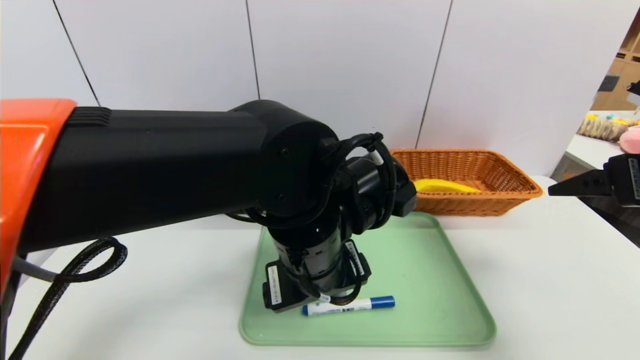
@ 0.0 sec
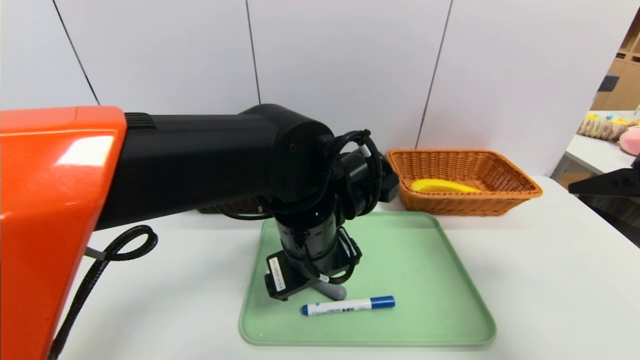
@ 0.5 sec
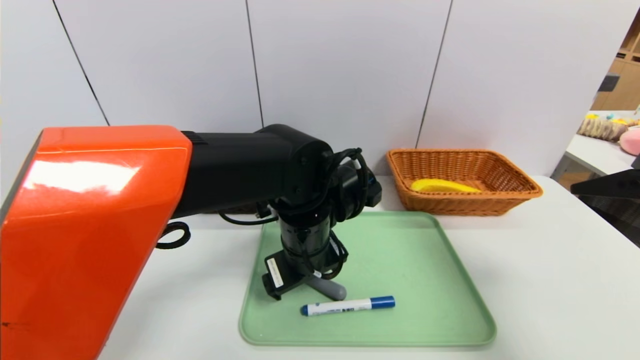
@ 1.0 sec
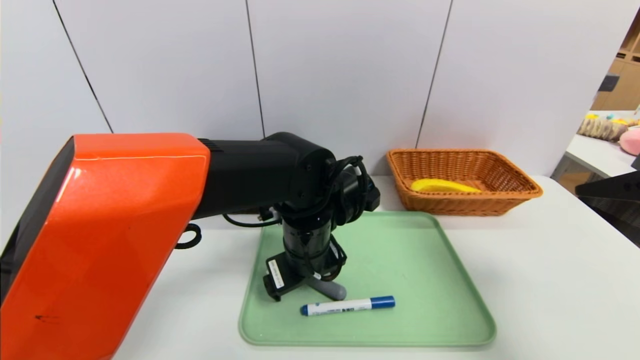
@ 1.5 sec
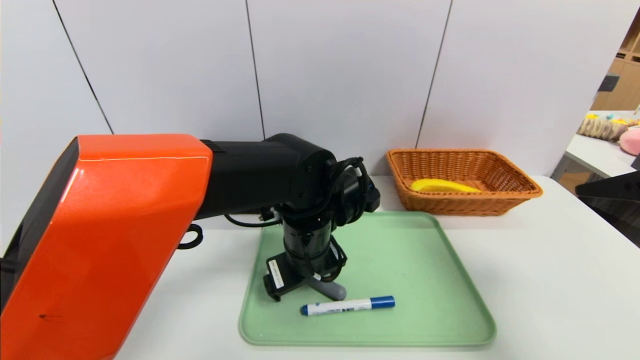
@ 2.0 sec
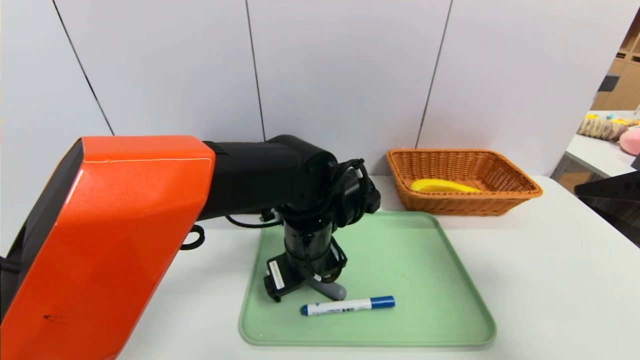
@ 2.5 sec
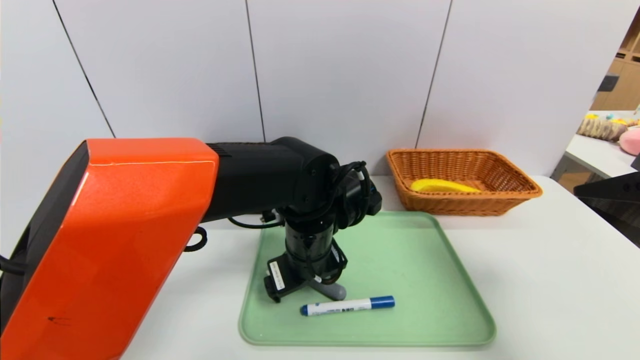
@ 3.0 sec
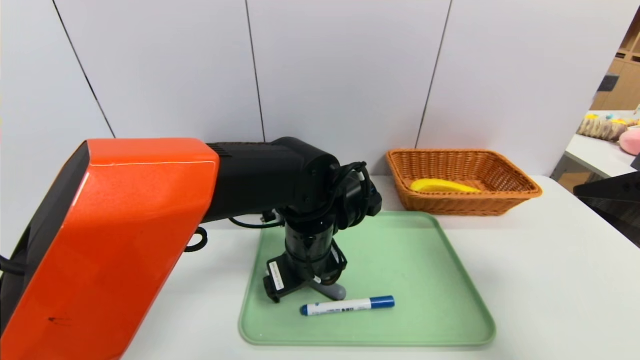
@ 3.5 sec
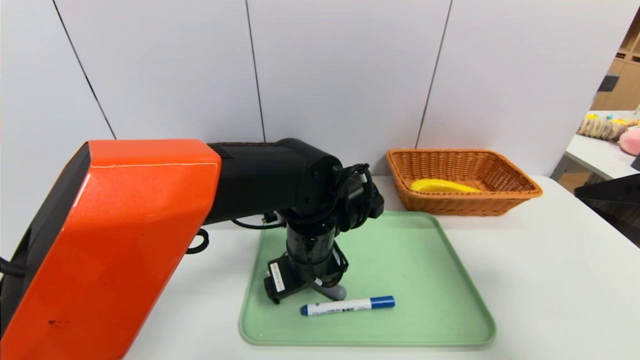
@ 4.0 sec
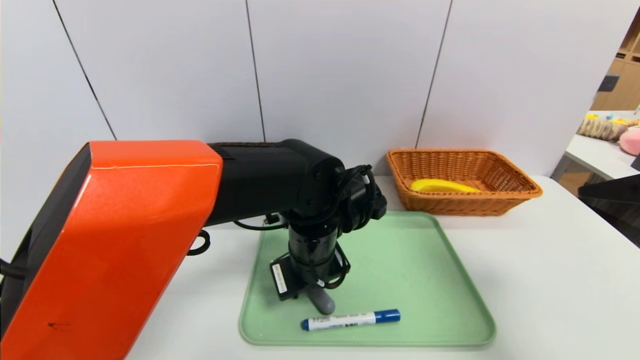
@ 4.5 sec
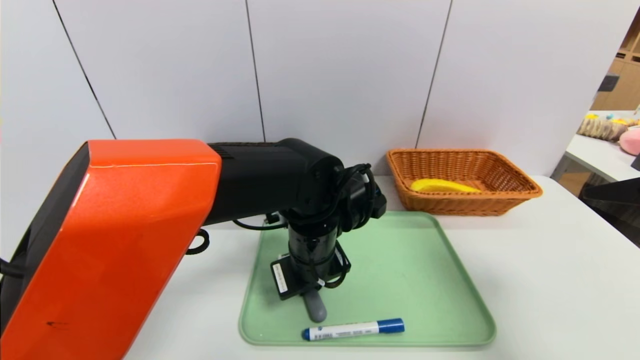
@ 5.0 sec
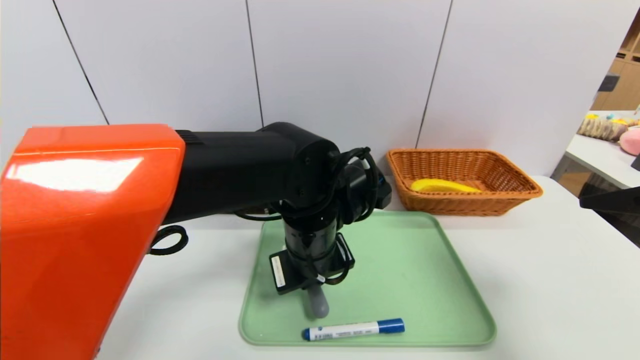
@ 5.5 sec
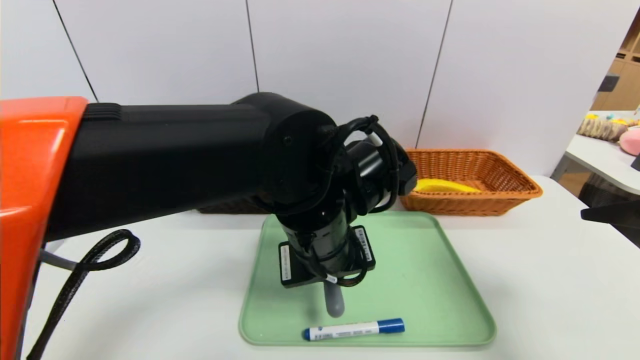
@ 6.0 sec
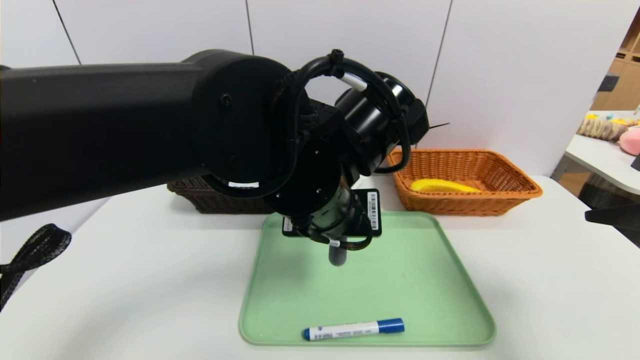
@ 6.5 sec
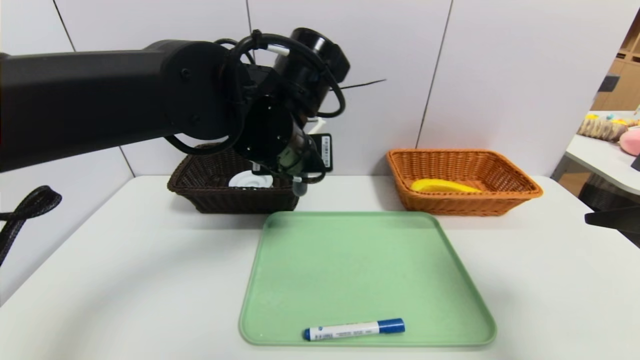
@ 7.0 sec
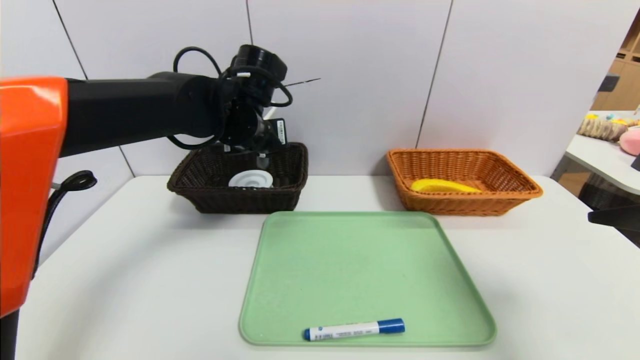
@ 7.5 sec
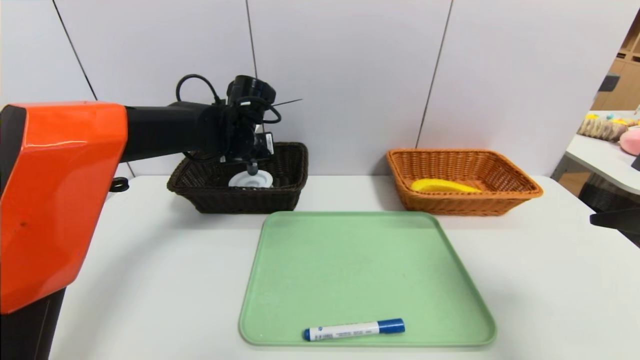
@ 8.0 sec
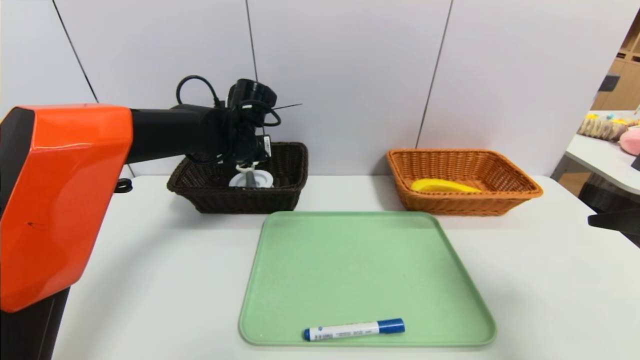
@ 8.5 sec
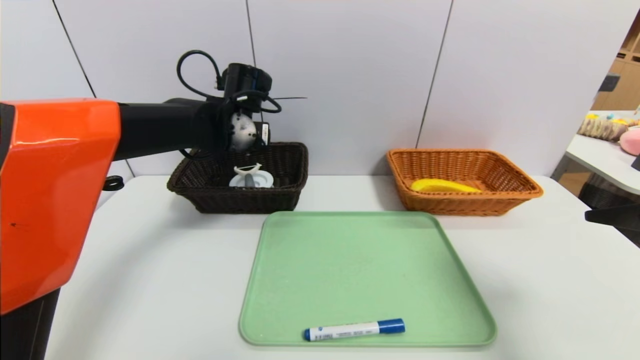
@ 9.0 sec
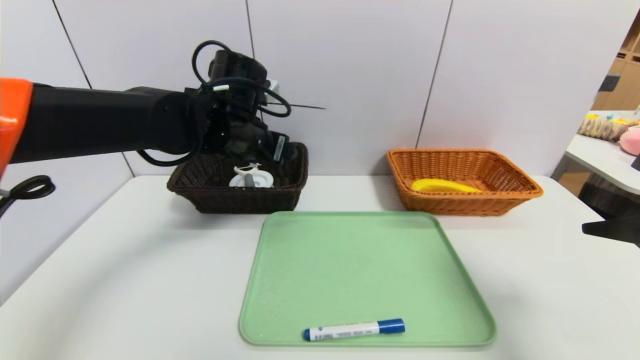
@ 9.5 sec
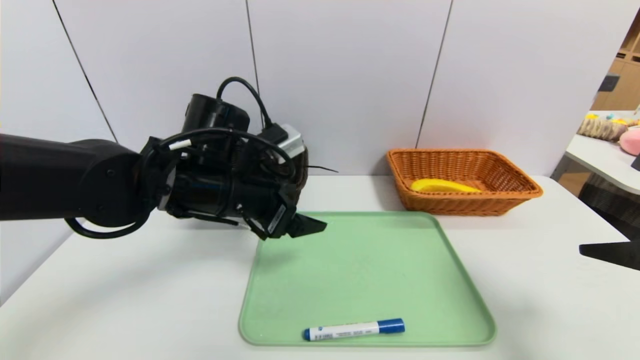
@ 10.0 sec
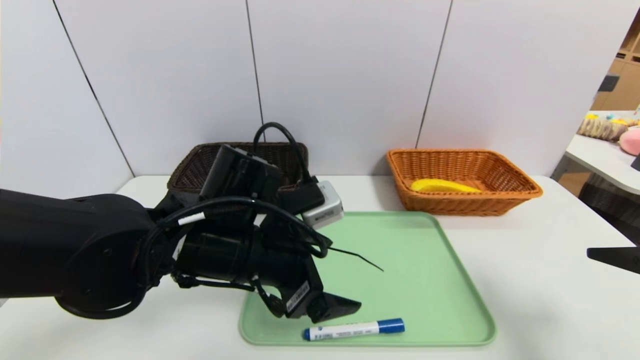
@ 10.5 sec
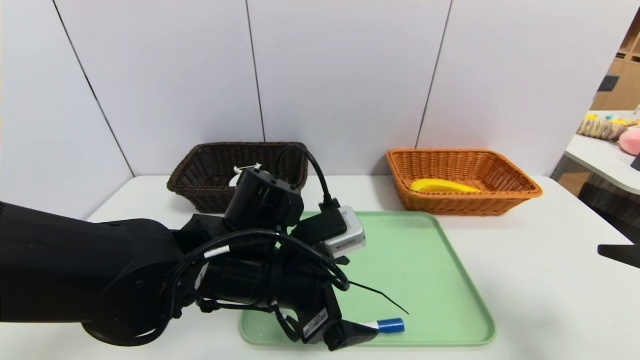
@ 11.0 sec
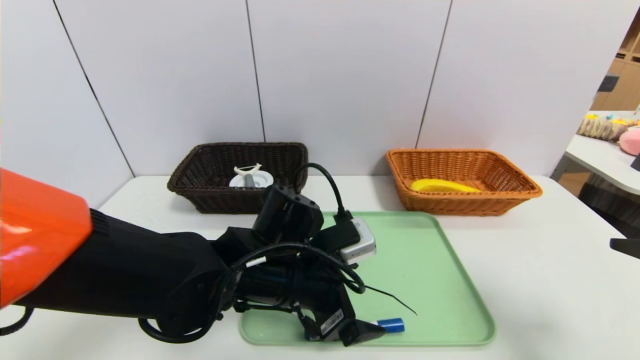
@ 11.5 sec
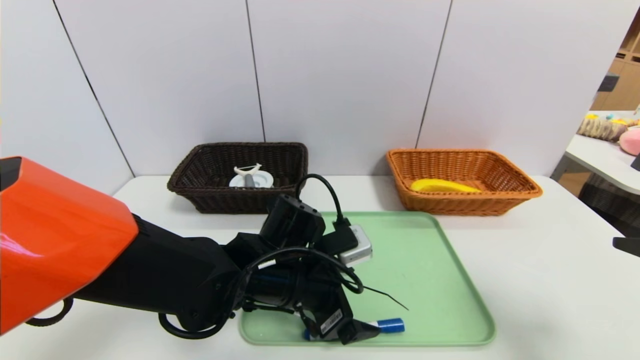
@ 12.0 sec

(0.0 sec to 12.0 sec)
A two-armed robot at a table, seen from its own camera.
Task of the whole recording: place the food in the right basket with the right gripper, and place the non food items in the left basket with the left gripper.
Step, 0.0 sec - 9.5 sec: Grasp the peeler and put it in the left basket.
0.0 sec - 2.0 sec: The left gripper goes roughly 10 cm forward and downward.
2.0 sec - 4.0 sec: Neither gripper changes place.
4.0 sec - 6.0 sec: The left gripper goes approximately 5 cm upward, and closes.
6.0 sec - 8.0 sec: The left gripper moves forward and to the left, about 25 cm.
8.0 sec - 10.0 sec: The left gripper moves backward, roughly 15 cm, and opens its fingers.
10.0 sec - 12.0 sec: The left gripper is displaced downward and to the right by about 15 cm.

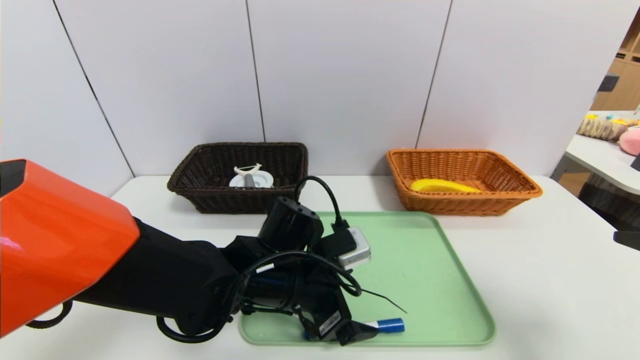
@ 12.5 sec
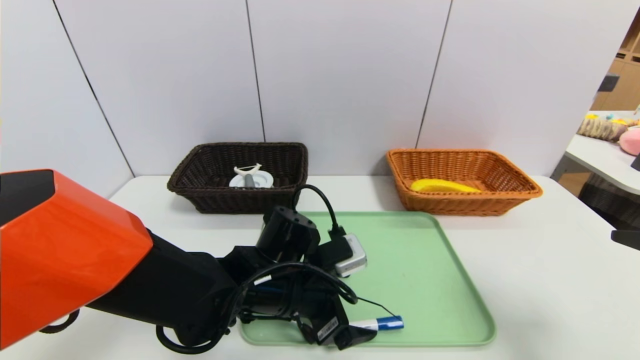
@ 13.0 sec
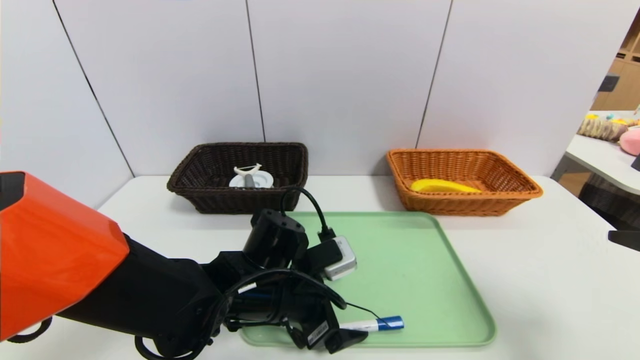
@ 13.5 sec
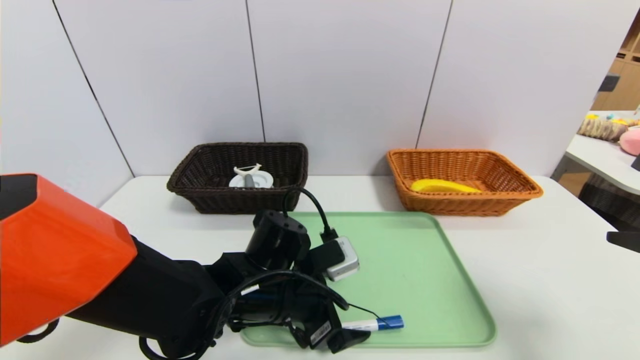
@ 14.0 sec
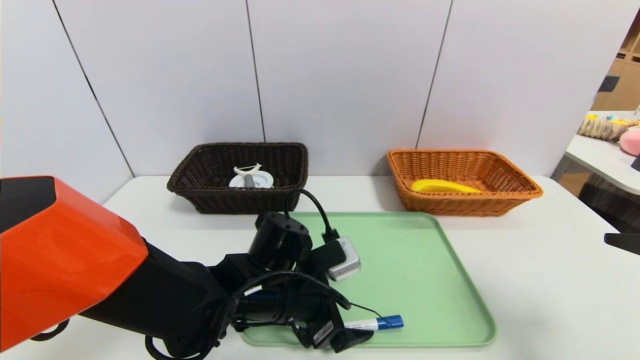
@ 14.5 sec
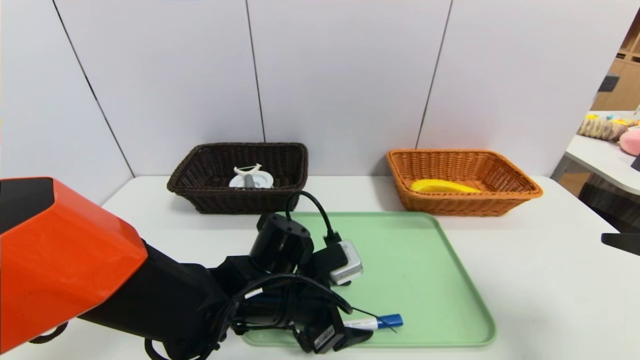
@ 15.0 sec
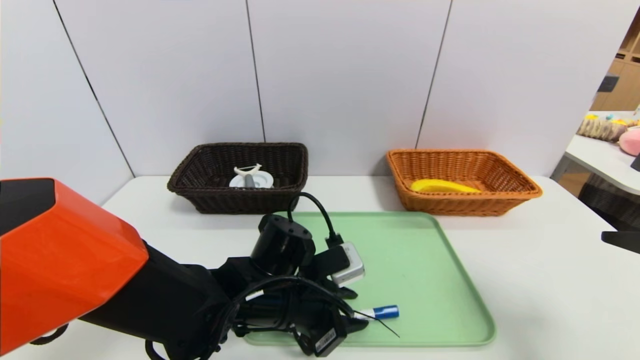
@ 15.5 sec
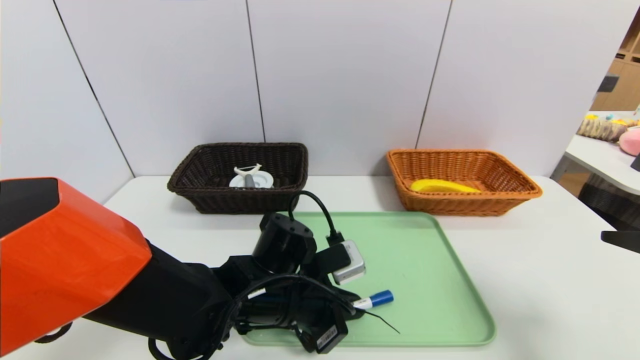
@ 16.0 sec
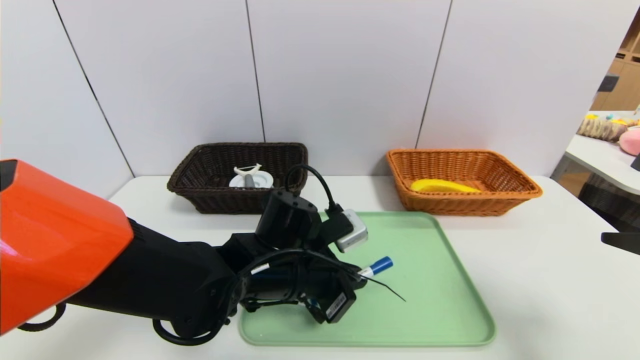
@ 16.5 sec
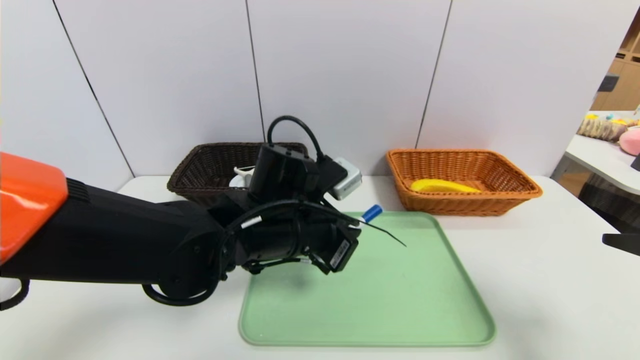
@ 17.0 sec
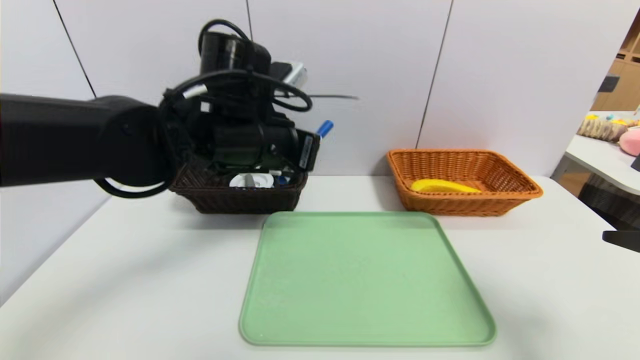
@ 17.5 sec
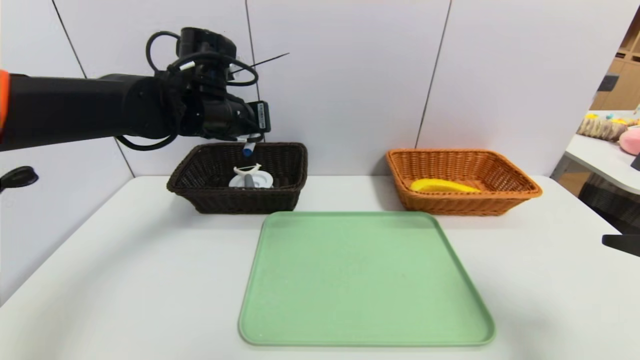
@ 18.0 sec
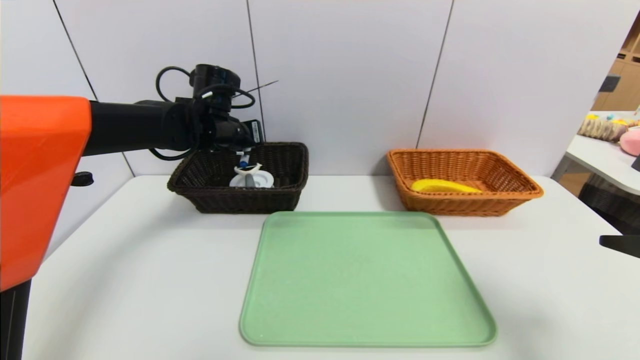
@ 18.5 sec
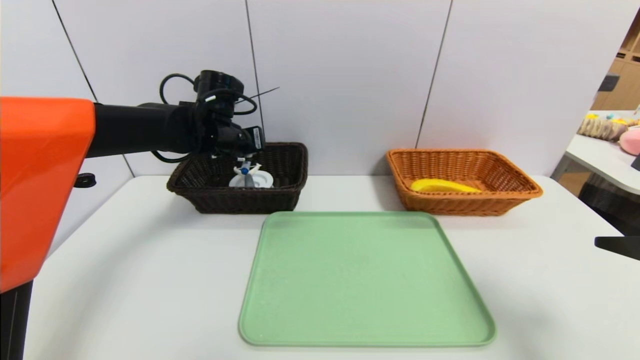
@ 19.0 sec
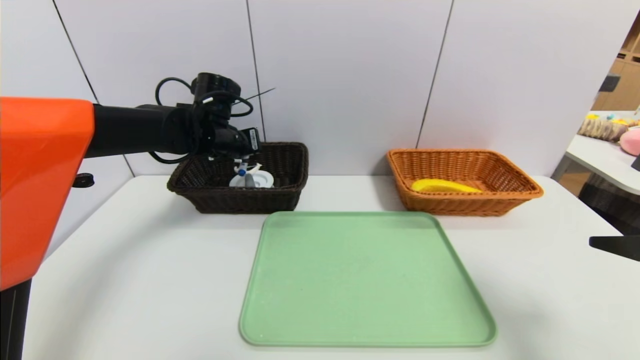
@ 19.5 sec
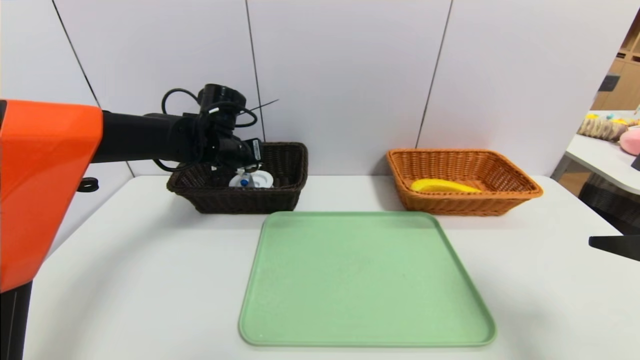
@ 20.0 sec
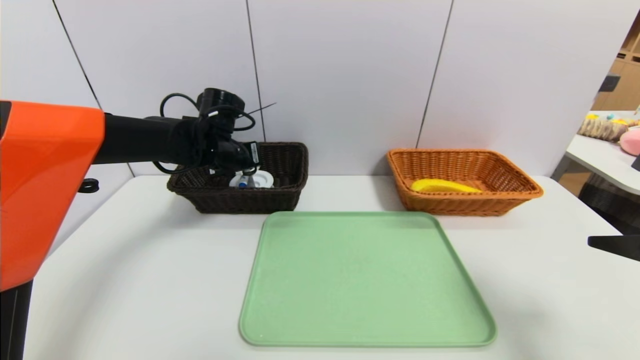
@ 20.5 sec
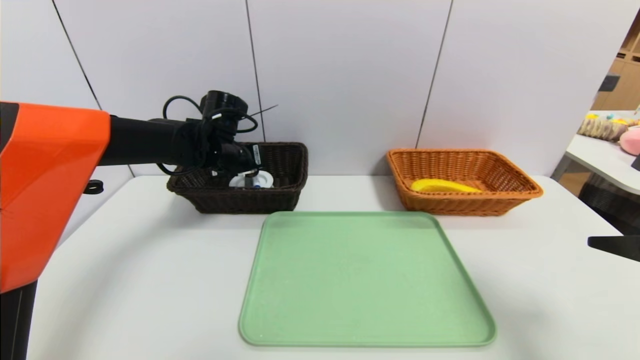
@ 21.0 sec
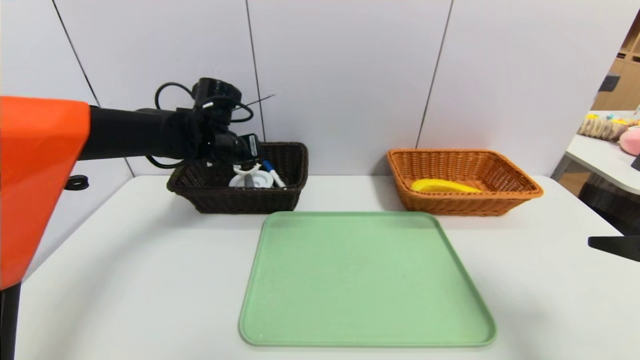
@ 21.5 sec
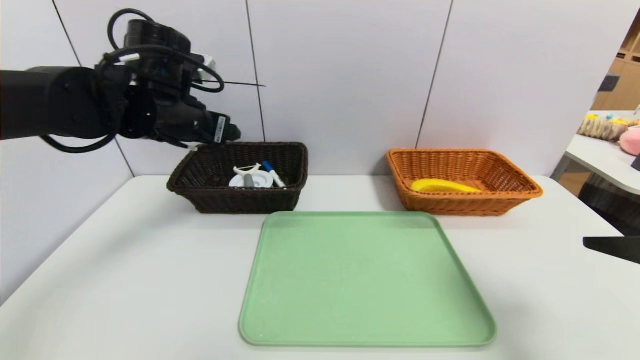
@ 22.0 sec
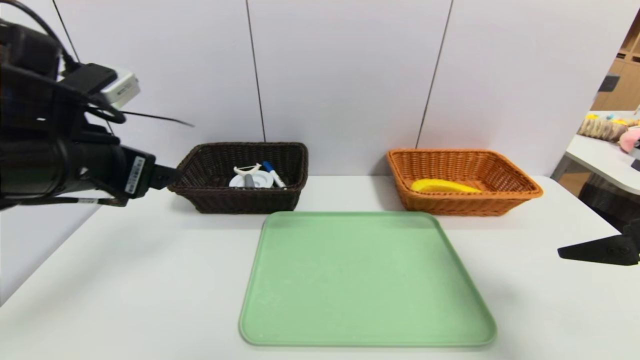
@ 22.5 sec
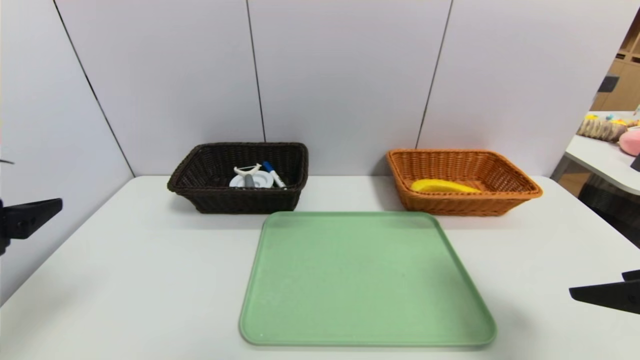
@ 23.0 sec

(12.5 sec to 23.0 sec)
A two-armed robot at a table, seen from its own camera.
Task of the whole recording: place the food in the right basket with the right gripper, and place the non food items in the left basket with the left gripper.
Step, 12.5 sec - 22.5 sec: Grasp the blue marker and put it in the left basket.
12.5 sec - 14.5 sec: The grippers make only small movements.
14.5 sec - 16.5 sec: The left gripper closes its fingers.
16.5 sec - 19.0 sec: The left gripper heads forward, to the left and upward, covering some 25 cm.
19.0 sec - 21.0 sec: There are only small adjustments of the grippers.
21.0 sec - 23.0 sec: The left gripper moves backward, some 30 cm, and opens.
